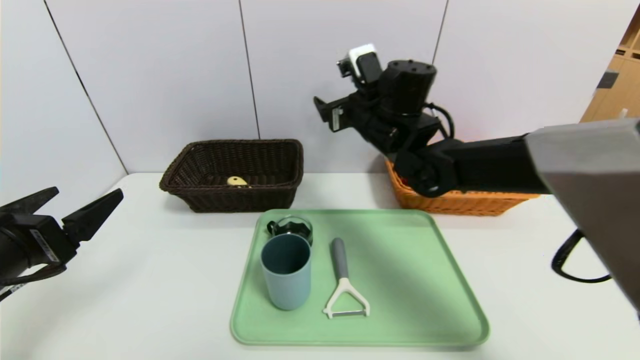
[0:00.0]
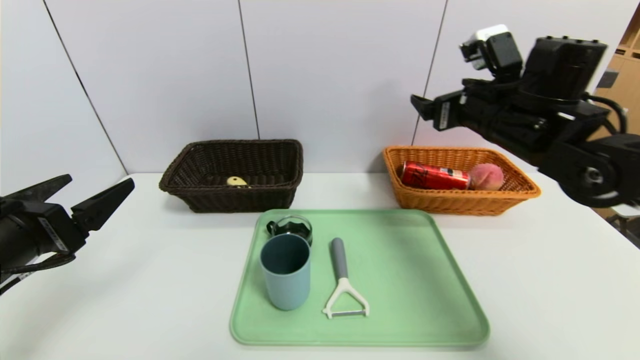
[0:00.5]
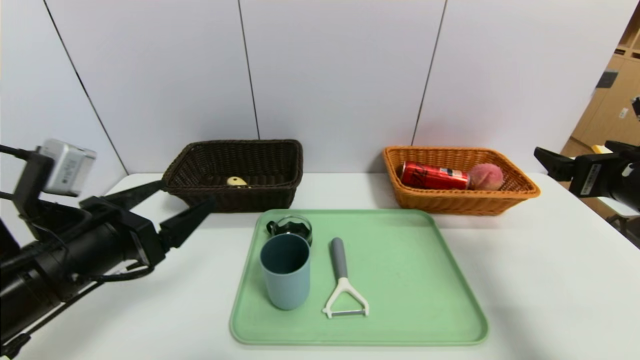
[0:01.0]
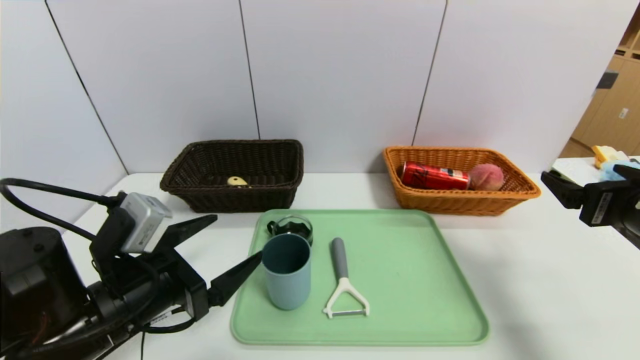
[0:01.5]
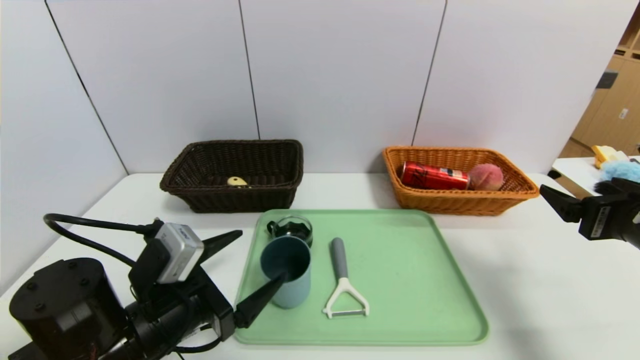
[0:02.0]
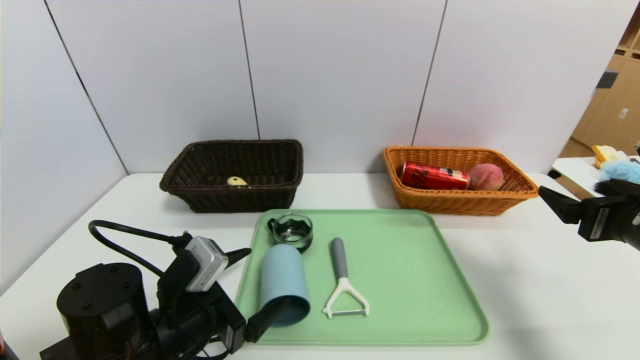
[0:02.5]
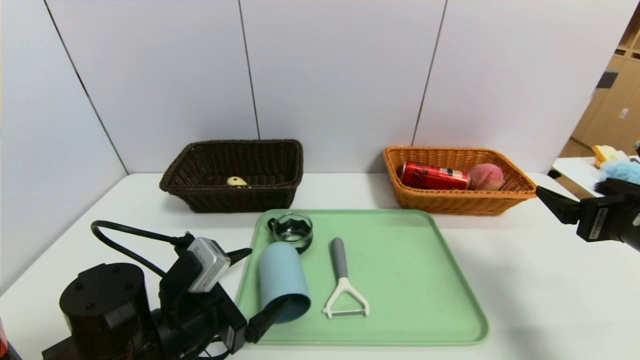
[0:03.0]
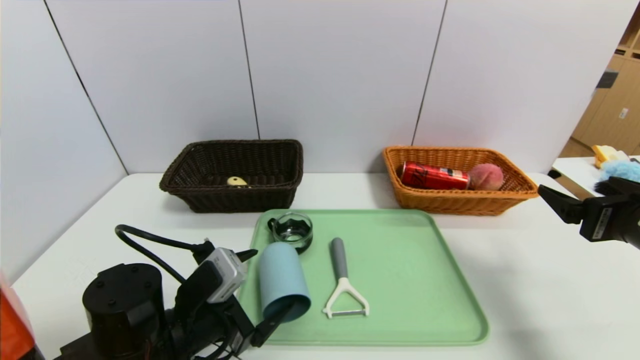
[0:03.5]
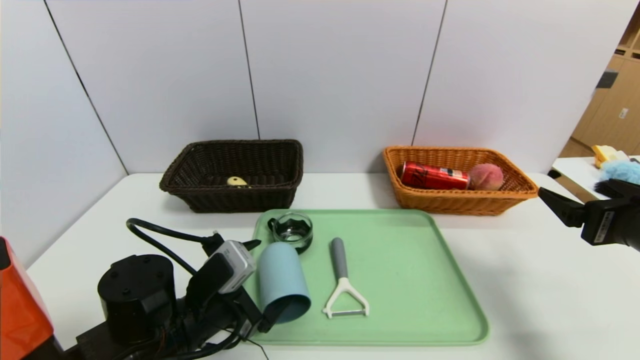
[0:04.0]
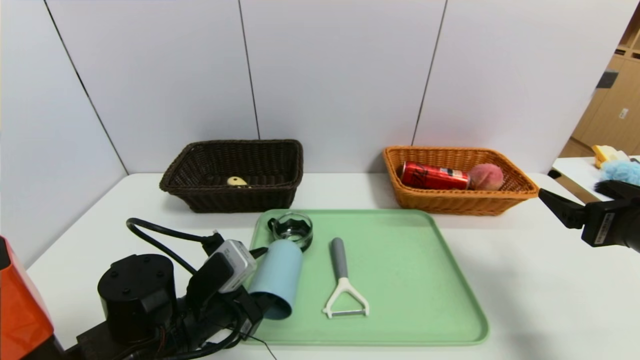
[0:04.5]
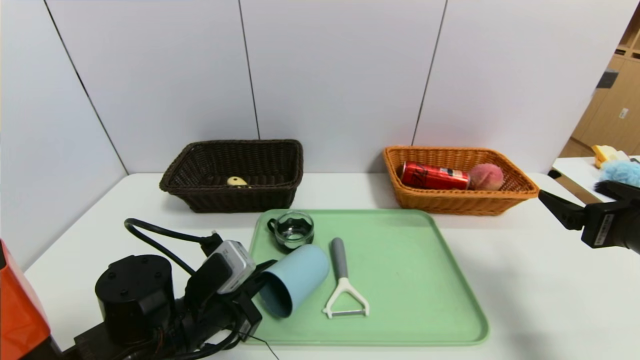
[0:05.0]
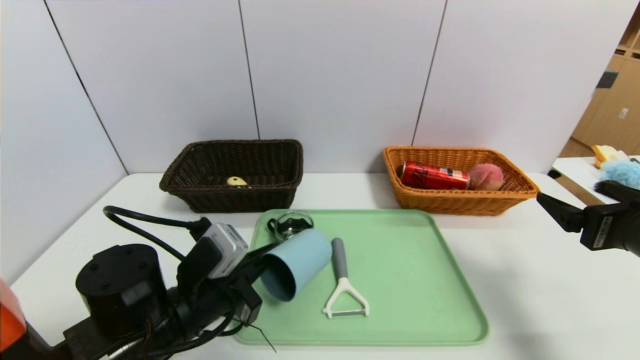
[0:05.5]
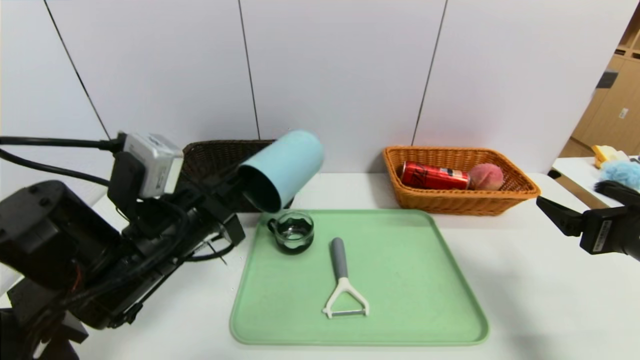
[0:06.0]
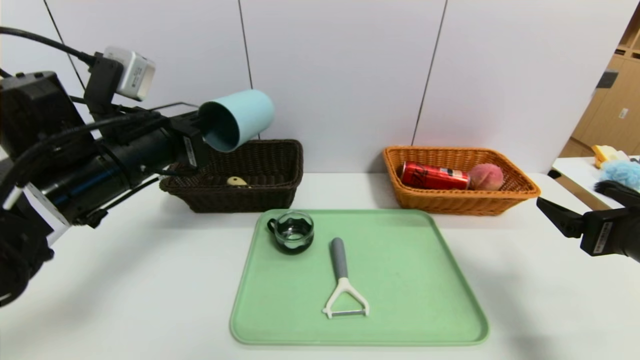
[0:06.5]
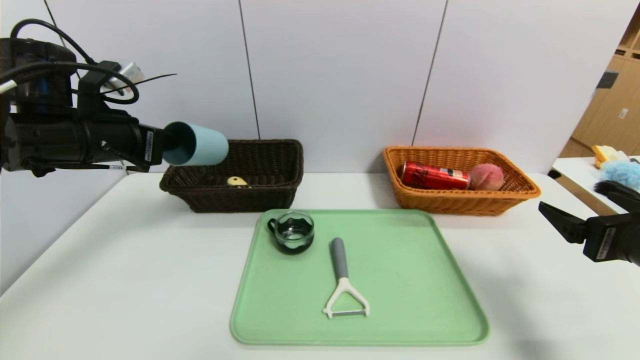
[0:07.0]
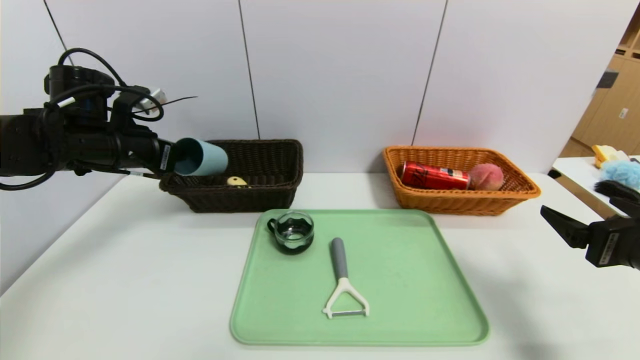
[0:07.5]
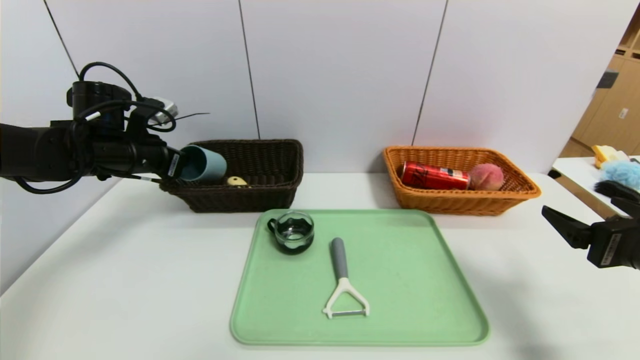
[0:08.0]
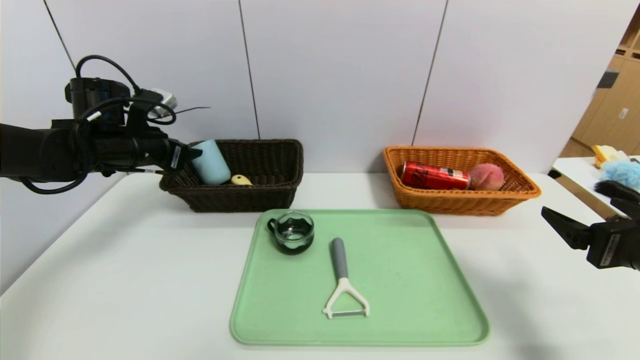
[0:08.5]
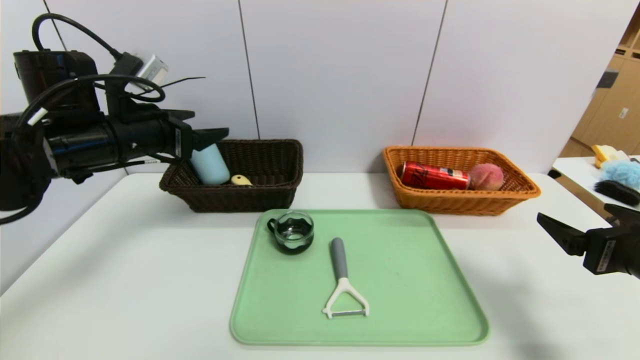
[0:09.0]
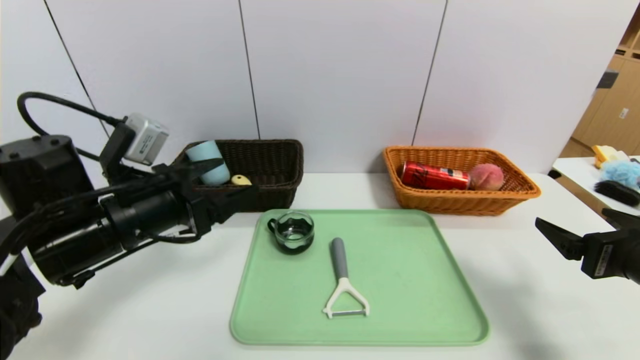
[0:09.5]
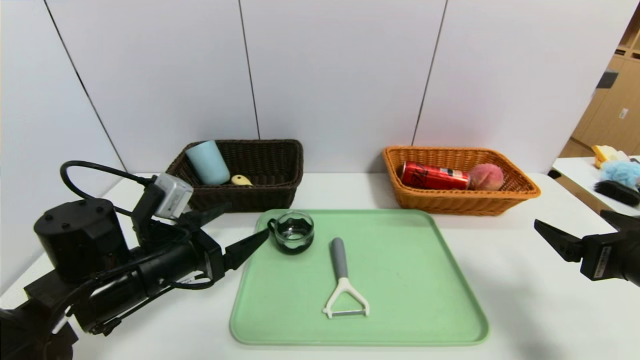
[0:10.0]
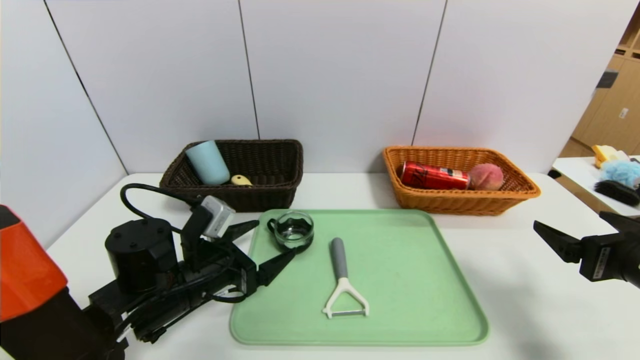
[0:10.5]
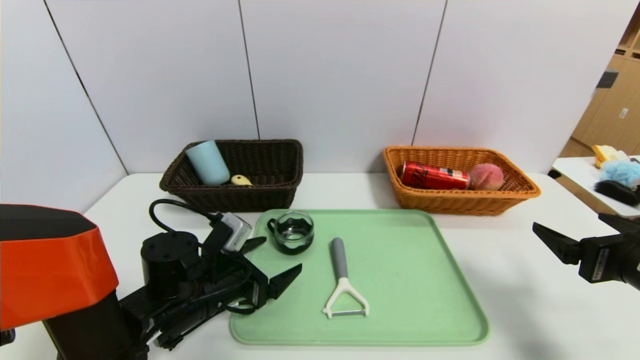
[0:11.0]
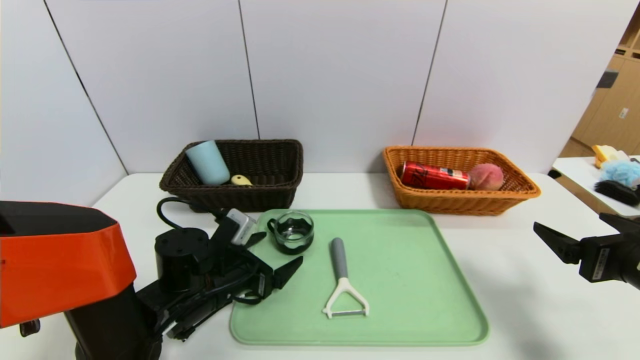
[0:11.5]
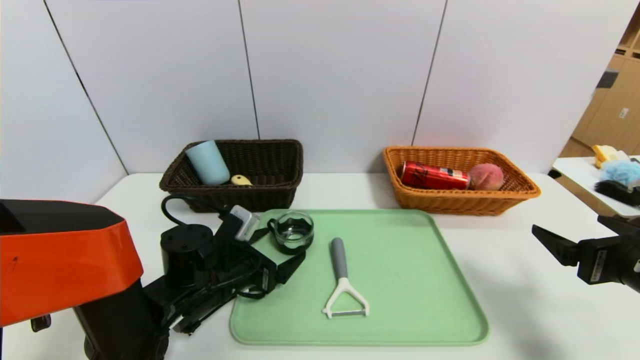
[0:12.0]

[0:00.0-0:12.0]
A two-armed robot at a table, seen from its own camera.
Task of the whole recording: place the food in the right basket with the right gripper, and place the non food items in the left basket with the left gripper.
Step, 0:00.0 to 0:09.0: Grasp the blue cup and put it in the left basket.
0:00.0 to 0:02.0: The left gripper moves to the right and downward, about 15 cm. Meanwhile the right gripper goes some 35 cm to the right and backward.
0:02.0 to 0:04.0: The grippers stay close to where they were, moving slightly.
0:04.0 to 0:06.0: The left gripper moves upward, roughly 10 cm, and closes its fingers.
0:06.0 to 0:08.0: The left gripper goes some 20 cm forward and to the left.
0:08.0 to 0:10.0: The left gripper heads backward, to the right and downward, covering some 20 cm, and opens.
0:10.0 to 0:12.0: The left gripper travels downward and to the right by approximately 10 cm.

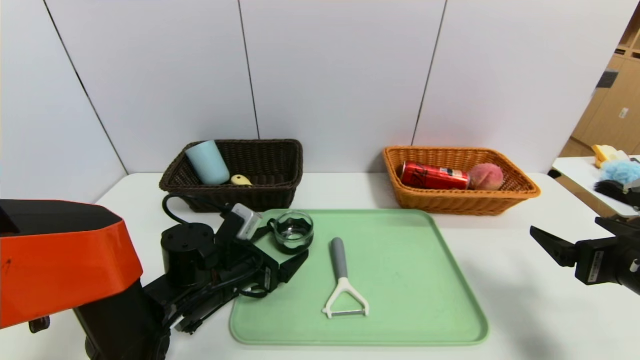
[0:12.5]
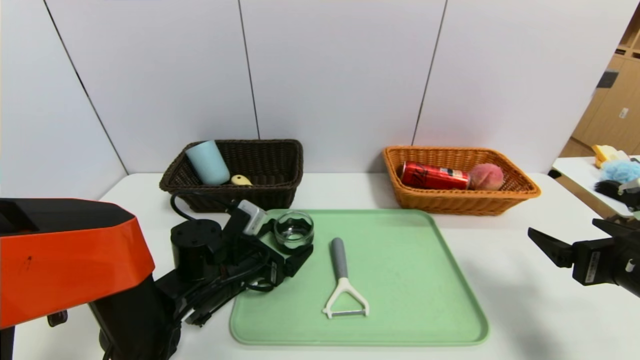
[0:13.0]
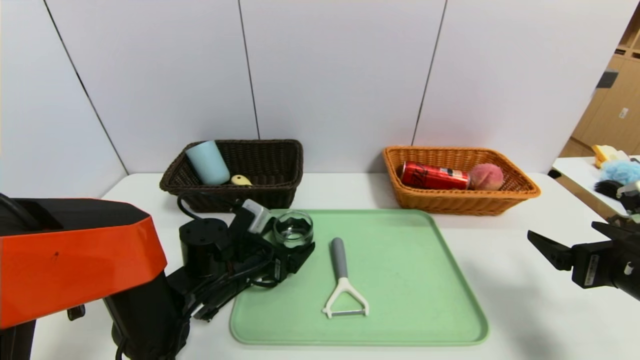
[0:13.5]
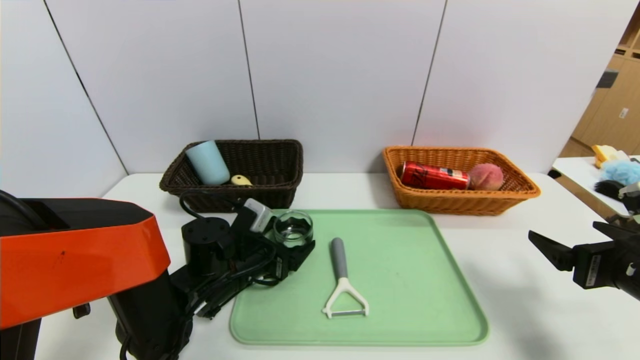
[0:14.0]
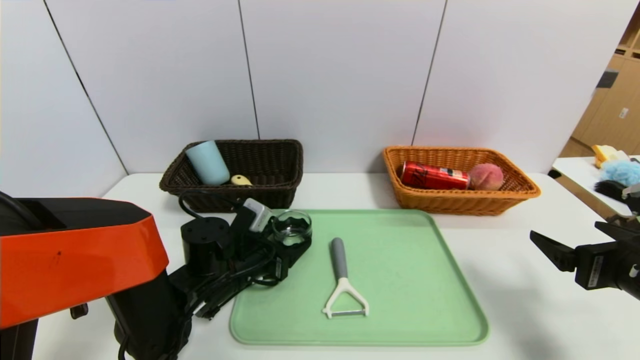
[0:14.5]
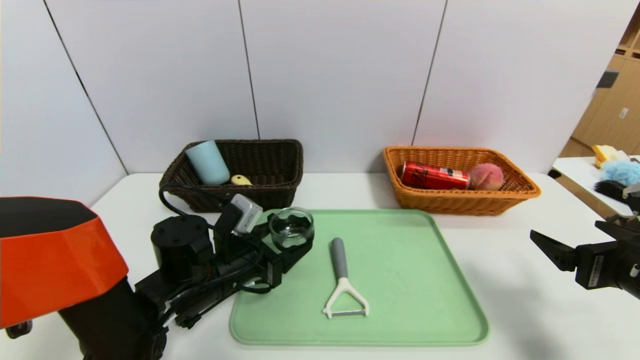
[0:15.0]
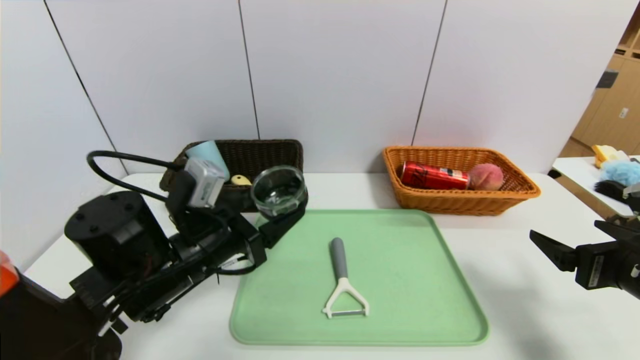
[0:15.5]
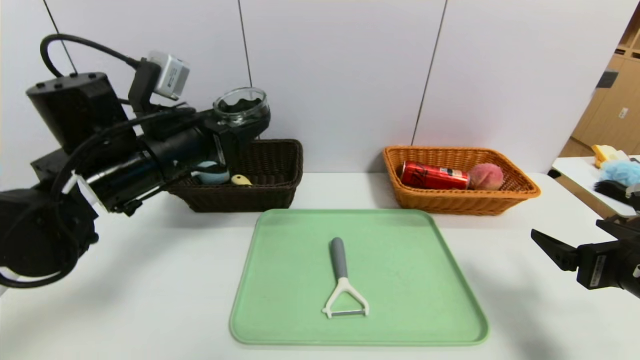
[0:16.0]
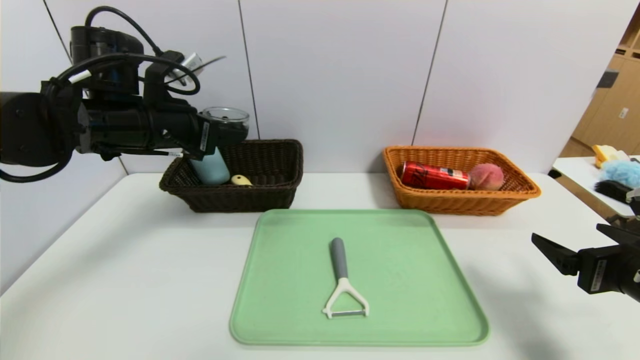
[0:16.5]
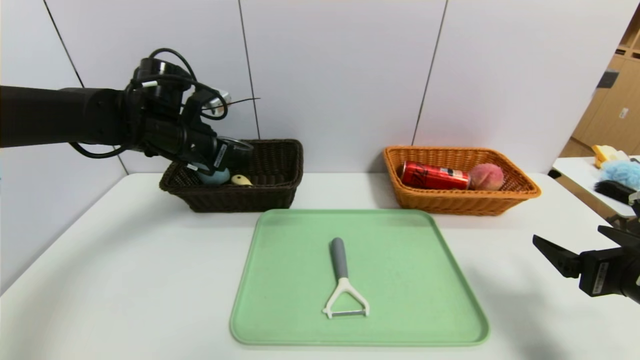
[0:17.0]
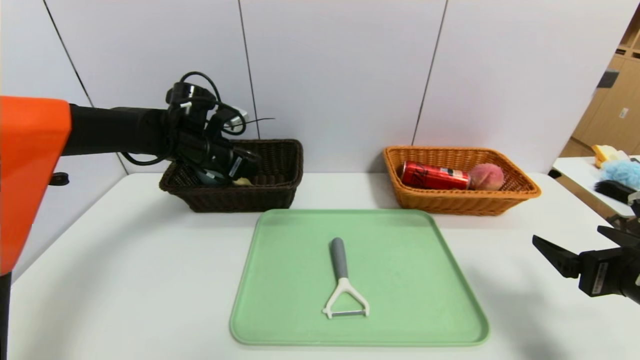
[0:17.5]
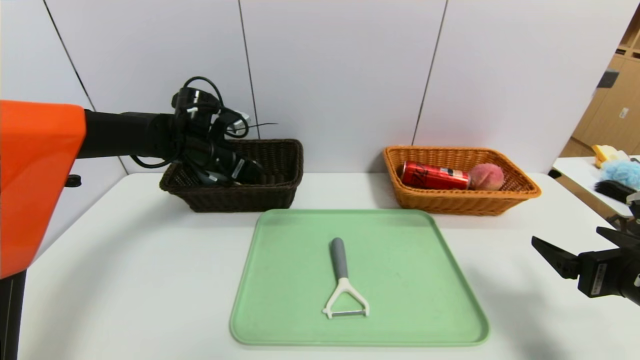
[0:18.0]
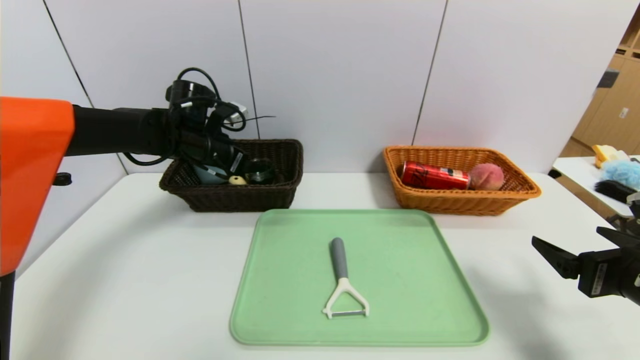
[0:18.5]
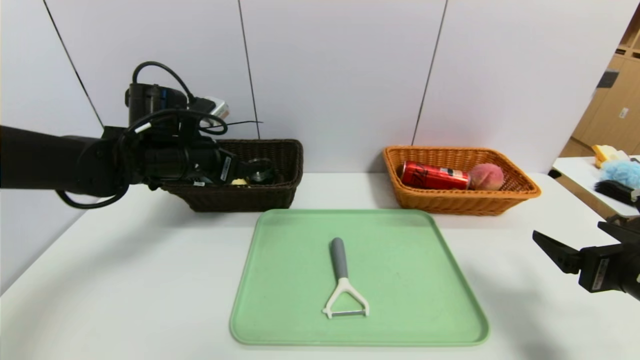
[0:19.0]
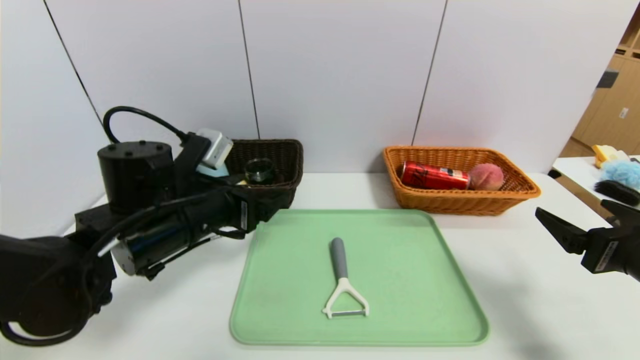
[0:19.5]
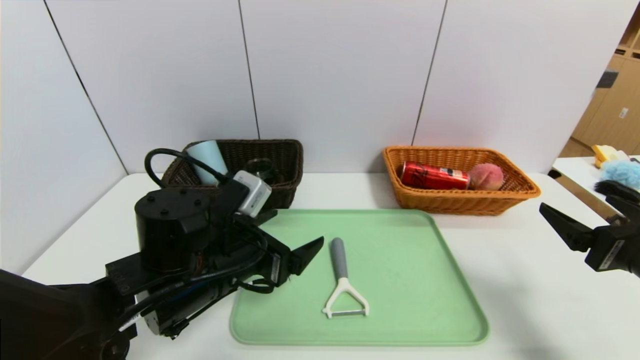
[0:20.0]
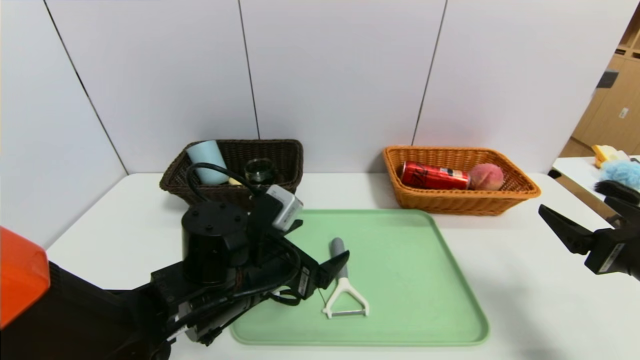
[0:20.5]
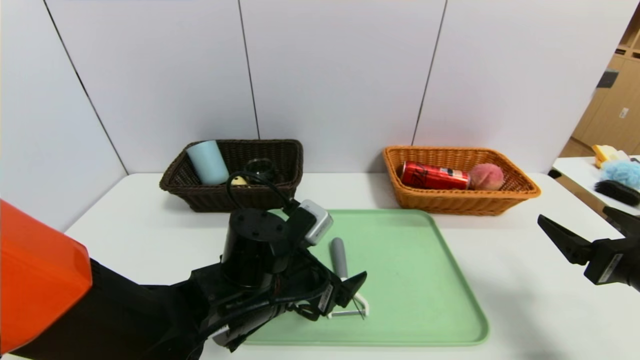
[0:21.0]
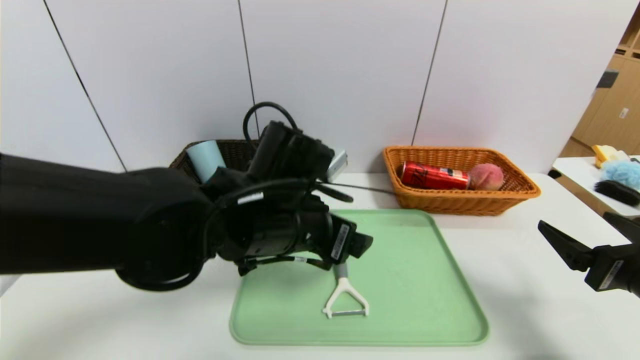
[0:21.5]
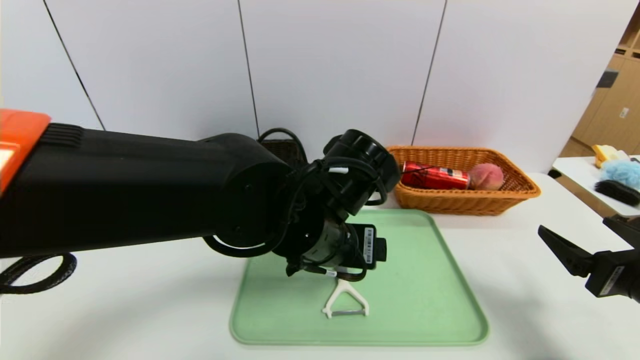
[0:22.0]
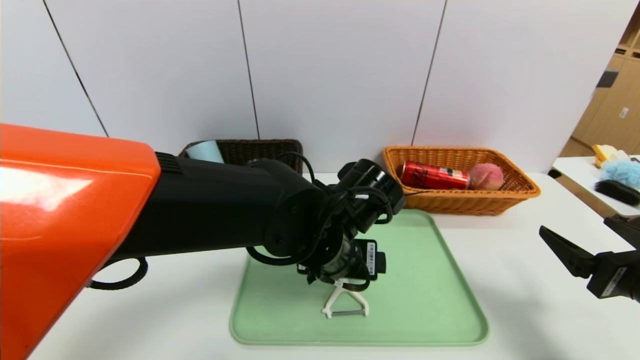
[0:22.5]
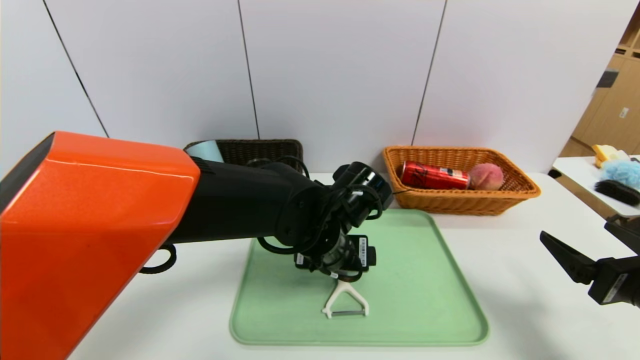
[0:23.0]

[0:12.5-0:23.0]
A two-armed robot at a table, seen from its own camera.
Task of the whole recording: place the food in the right basket with the right gripper, and place the non food items in the left basket with the left gripper.
Step, 0:12.5 to 0:19.0: Grasp the tea cup and put it in the left basket.
0:12.5 to 0:14.5: The grippers make only small movements.
0:14.5 to 0:16.5: The left gripper is displaced upward and to the left by some 25 cm.
0:16.5 to 0:19.0: The left gripper travels downward by roughly 5 cm, and goes forward and returns, some 10 cm each way.
0:19.0 to 0:21.0: The left gripper is displaced to the right, backward and downward by about 20 cm.
0:21.0 to 0:23.0: The left gripper travels to the right and forward by about 10 cm, and travels upward and back again, about 10 cm each way.
